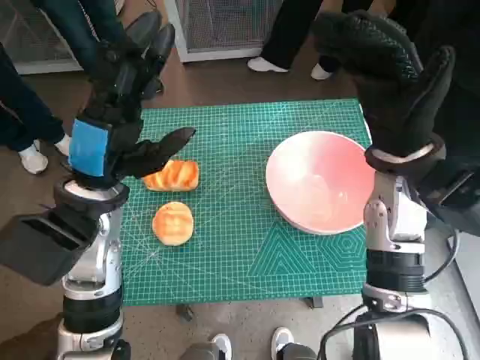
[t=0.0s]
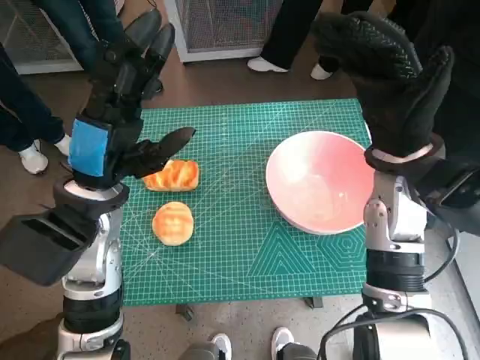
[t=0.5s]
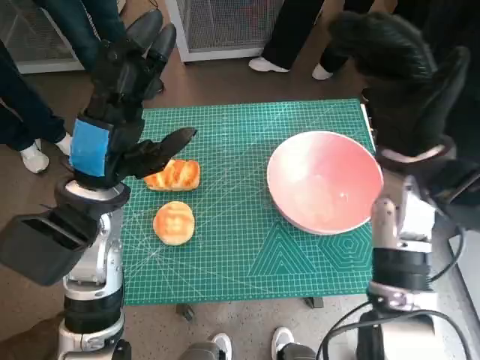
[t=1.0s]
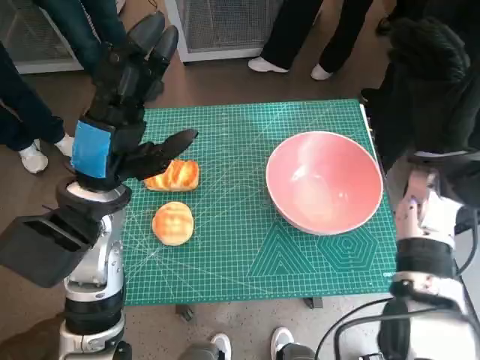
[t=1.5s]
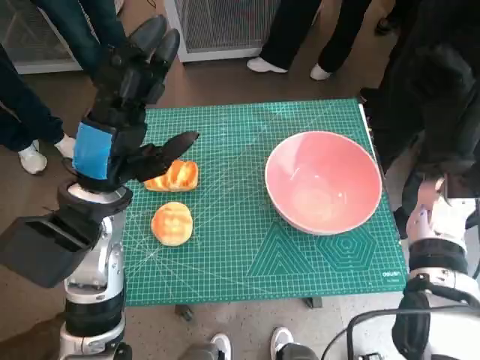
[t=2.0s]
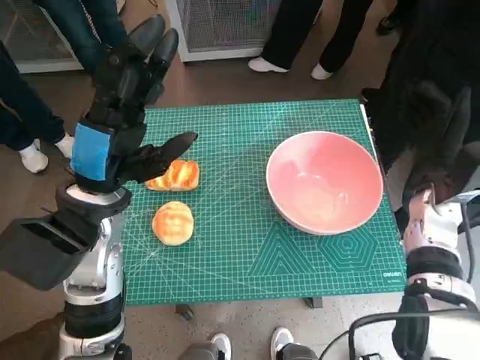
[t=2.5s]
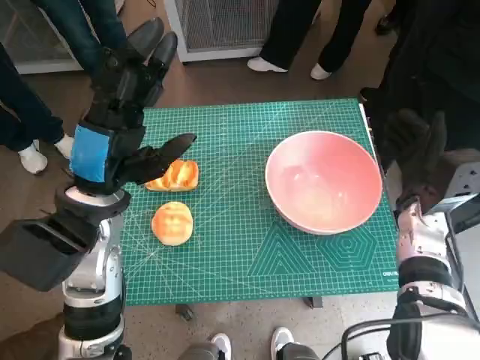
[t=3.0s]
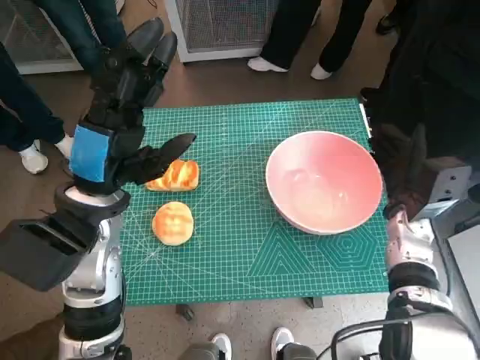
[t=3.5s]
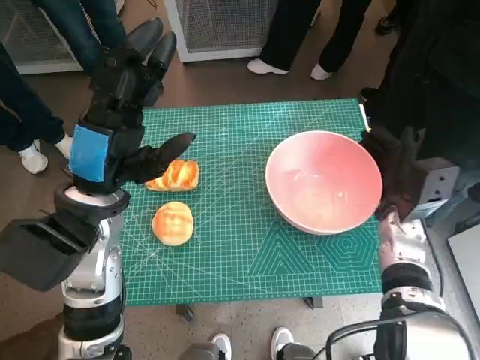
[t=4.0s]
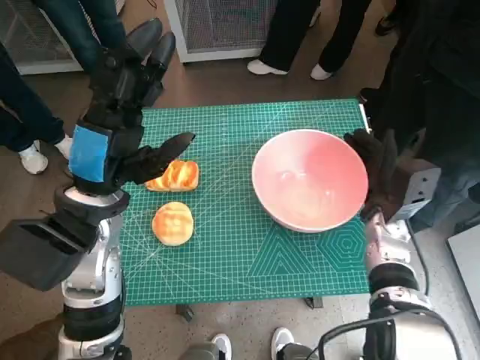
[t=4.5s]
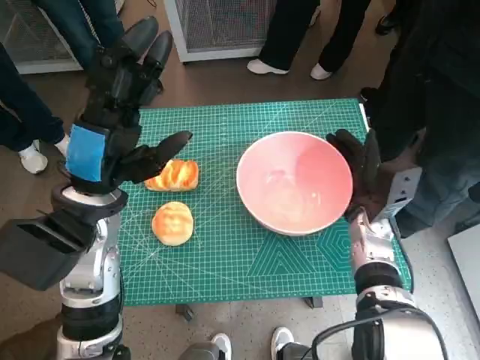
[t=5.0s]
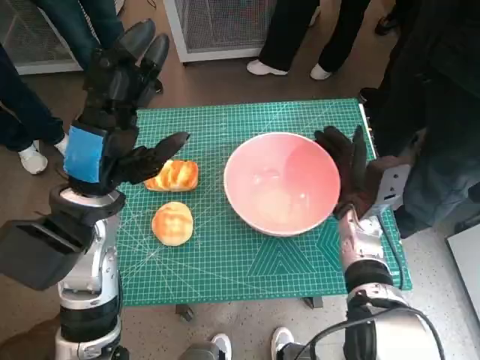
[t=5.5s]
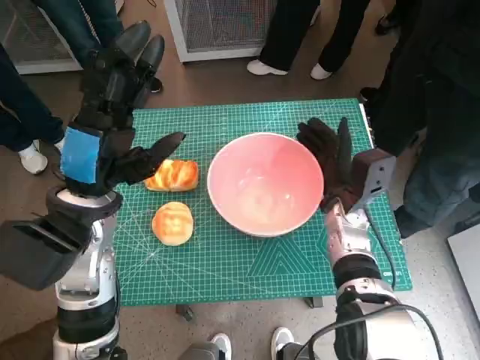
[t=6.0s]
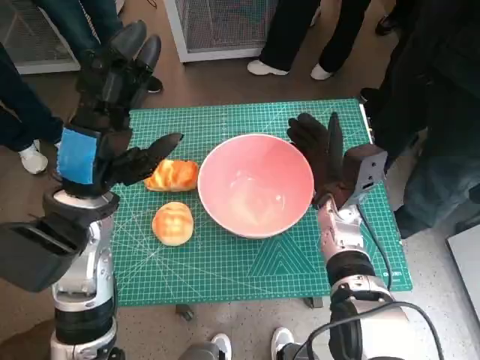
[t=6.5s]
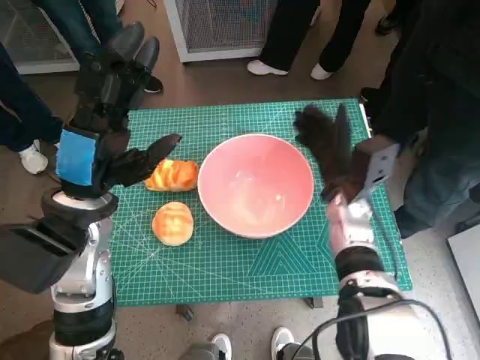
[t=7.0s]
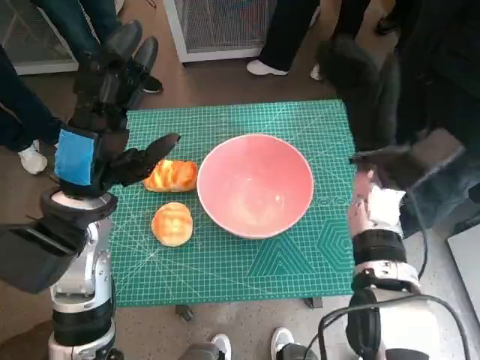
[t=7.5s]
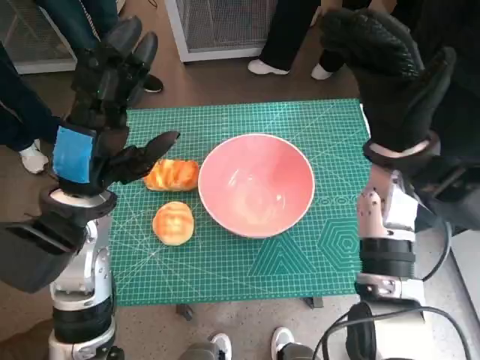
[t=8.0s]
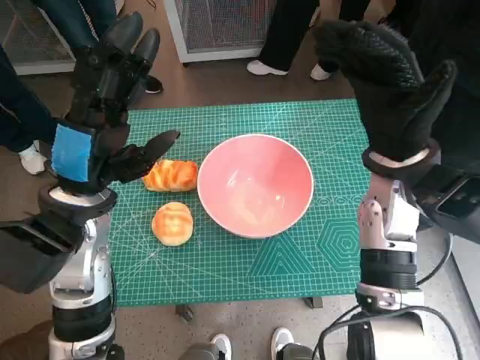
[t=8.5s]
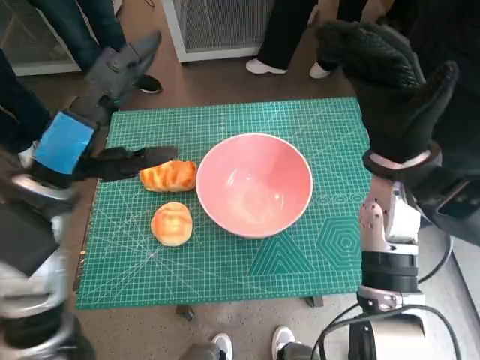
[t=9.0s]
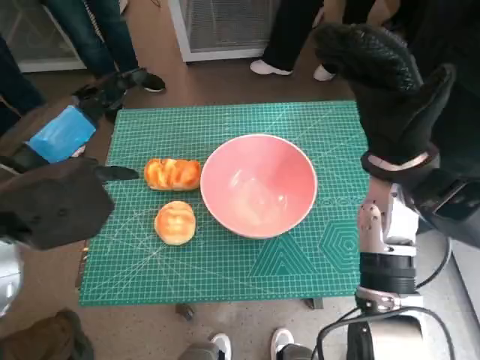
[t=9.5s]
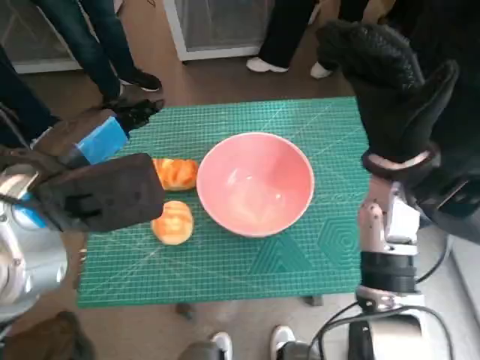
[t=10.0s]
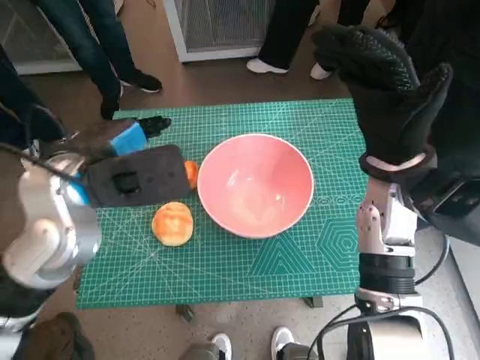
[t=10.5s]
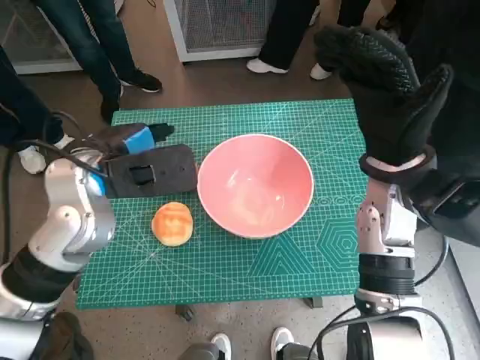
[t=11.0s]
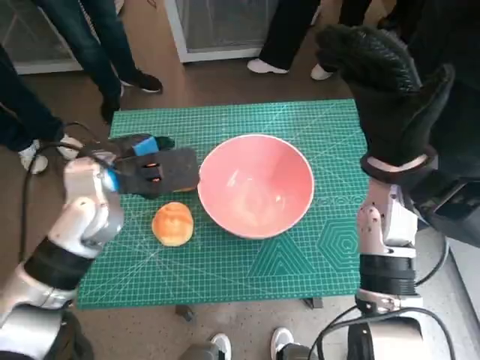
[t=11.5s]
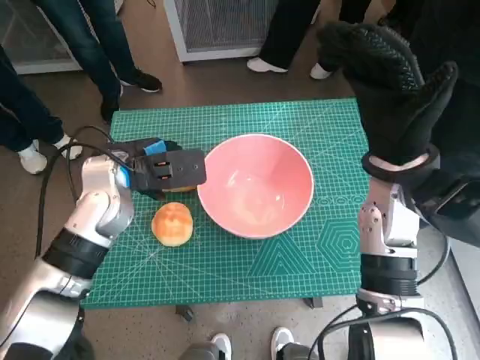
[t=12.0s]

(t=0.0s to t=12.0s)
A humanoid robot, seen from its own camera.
Task of the whole recording: Push the bowl into the center of the table and put the bread into the bowl.
Step, t=0.0s - t=6.5s: Move the pink bowl to the center of table with right hand.
t=2.0s - t=4.0s: The right hand moves downward, about 10 cm.
t=4.0s - t=6.0s: The right hand goes about 10 cm to the left.
t=6.0s - t=8.0s: The right hand shifts roughly 15 cm upward.
t=8.0s - t=10.0s: The left hand shifts roughly 5 cm upward.
t=10.0s - t=12.0s: The left hand is displaced downward and forward by roughly 15 cm.

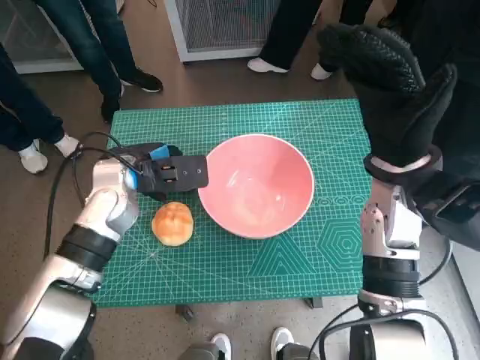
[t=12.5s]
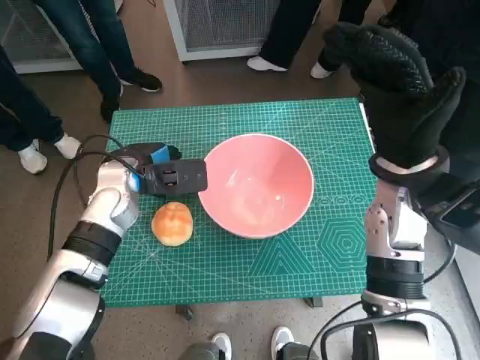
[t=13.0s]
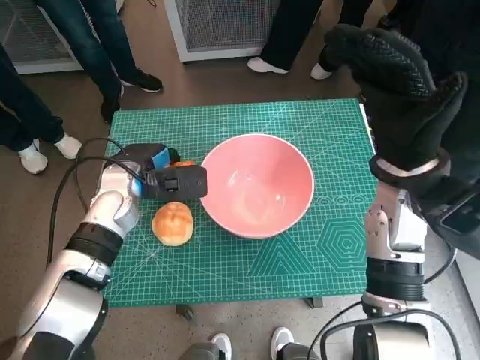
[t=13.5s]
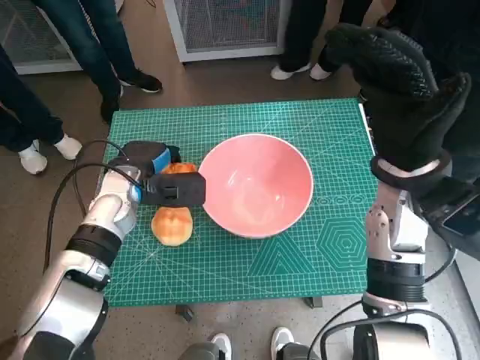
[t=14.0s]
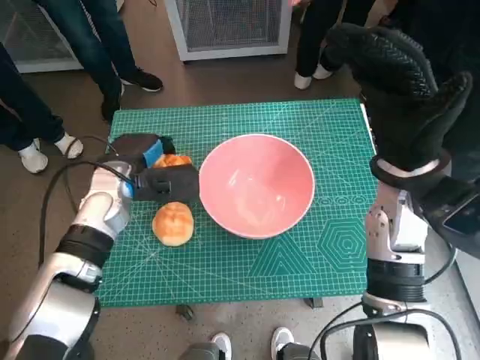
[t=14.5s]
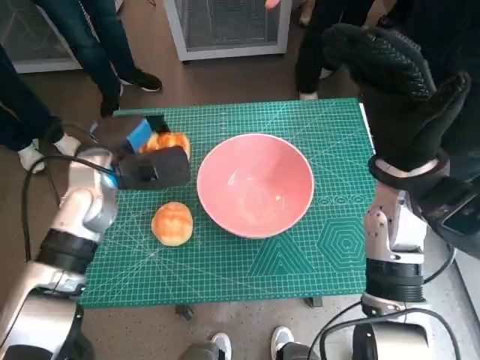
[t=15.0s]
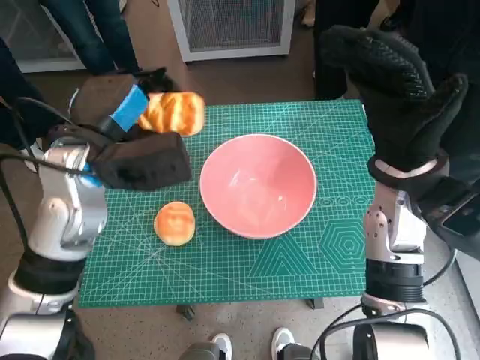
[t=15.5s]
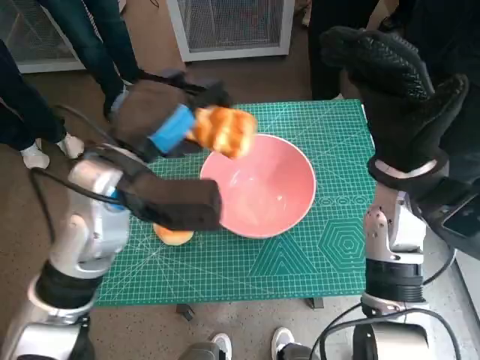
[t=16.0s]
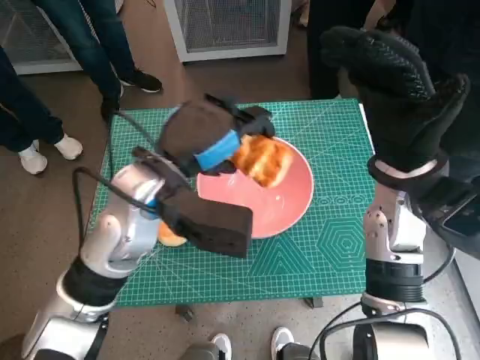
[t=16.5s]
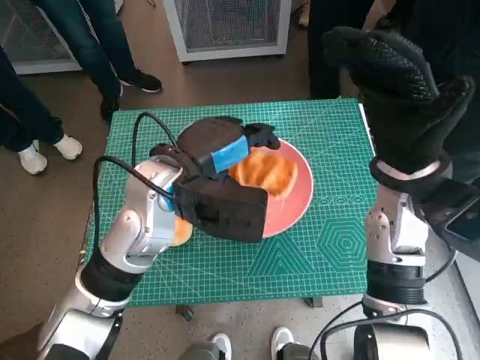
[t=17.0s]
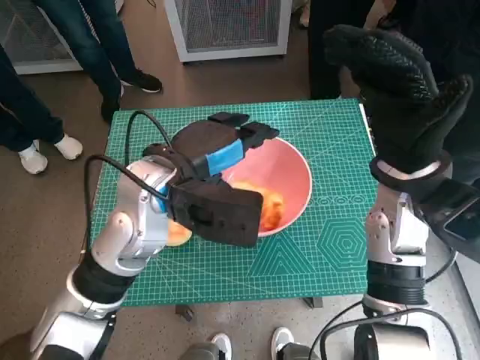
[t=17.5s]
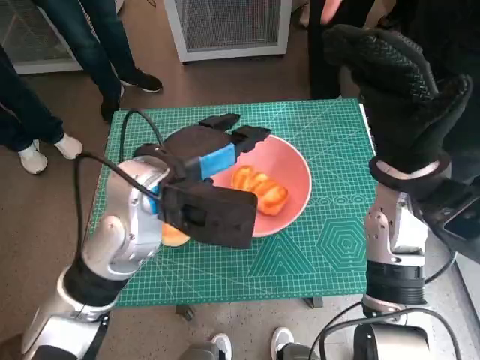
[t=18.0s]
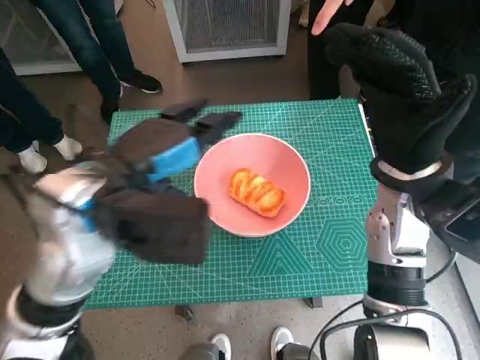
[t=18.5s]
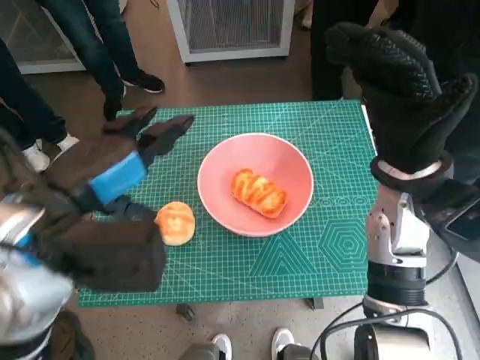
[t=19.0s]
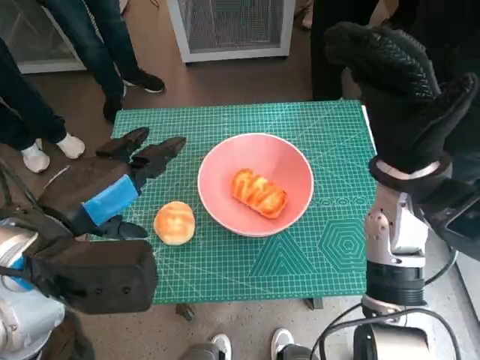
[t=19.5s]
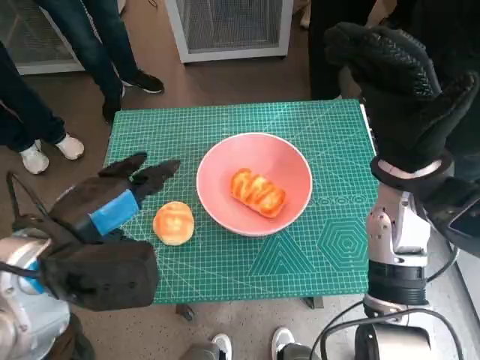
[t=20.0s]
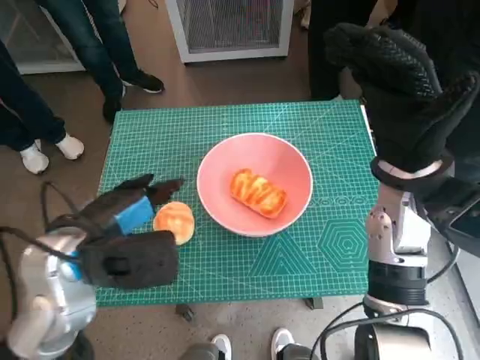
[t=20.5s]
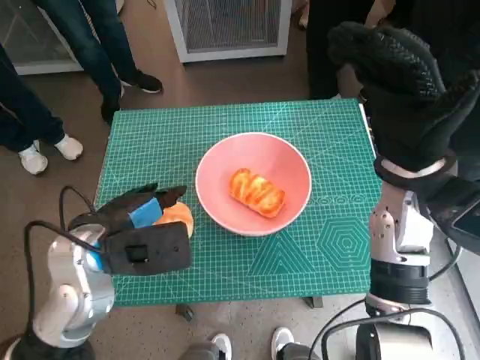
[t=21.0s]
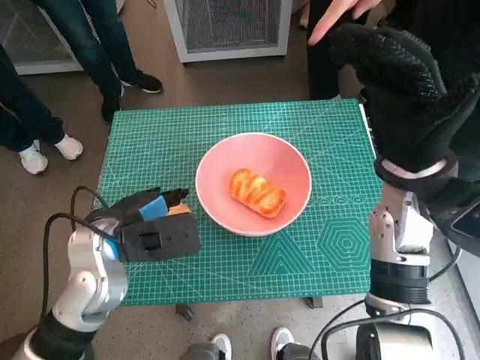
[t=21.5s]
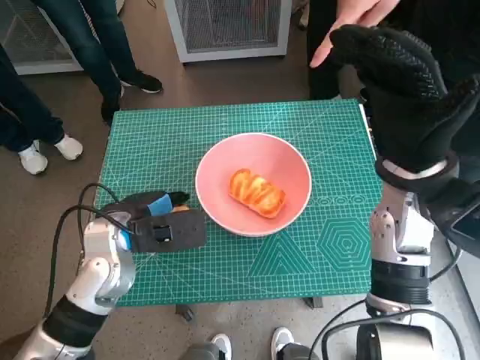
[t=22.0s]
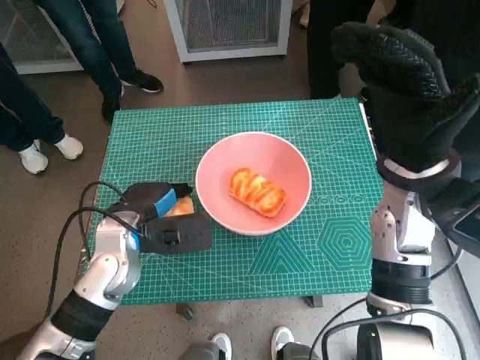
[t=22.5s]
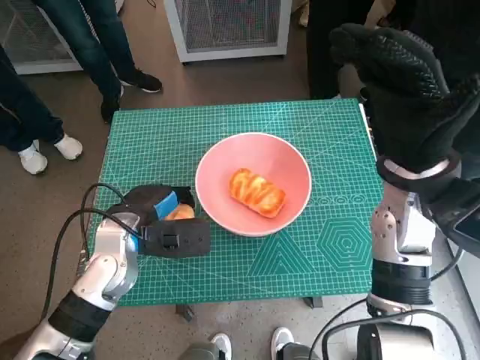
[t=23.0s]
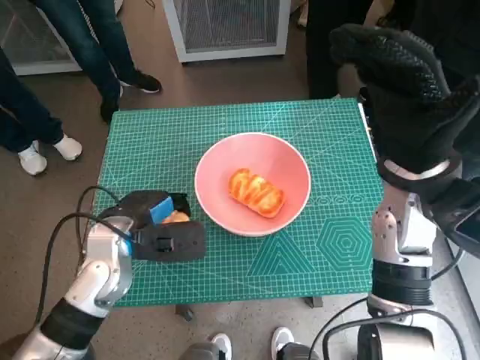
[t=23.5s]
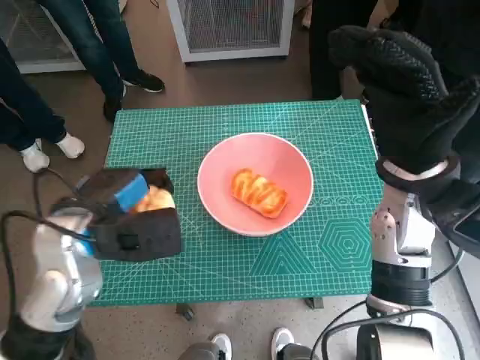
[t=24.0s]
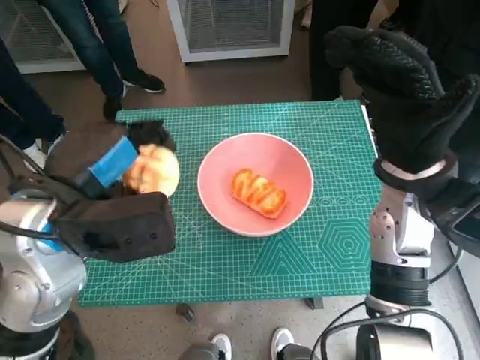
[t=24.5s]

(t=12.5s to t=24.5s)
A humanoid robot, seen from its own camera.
Task of the whole recording: Push the bowl into the center of the table and put the bread into the bowl.
Step, t=14.0s - t=17.0s: Place the long bread in pink bowl with left hand.
Step, t=17.5s - t=22.5s: Grasp the round bread with left hand.
t=12.5s - t=14.5s: The hands move only a little.
t=14.5s - t=16.5s: The left hand moves upward, to the right and backward, about 15 cm.
t=16.5s - t=18.5s: The left hand moves about 5 cm.
t=18.5s - t=20.5s: The left hand goes about 5 cm downward.
t=20.5s - t=22.5s: The left hand heads downward and forward, covering some 10 cm.
t=22.5s - t=24.5s: The left hand travels upward by approximately 15 cm.

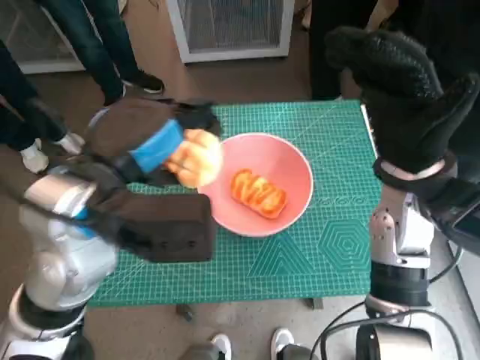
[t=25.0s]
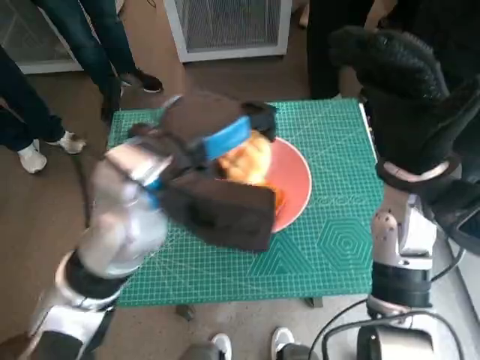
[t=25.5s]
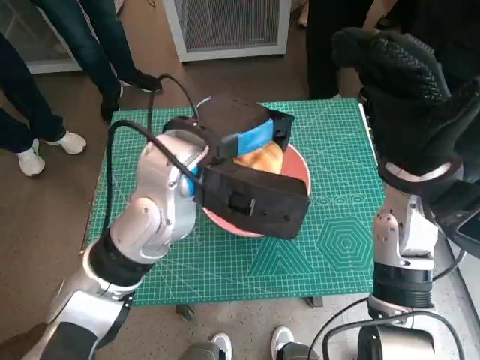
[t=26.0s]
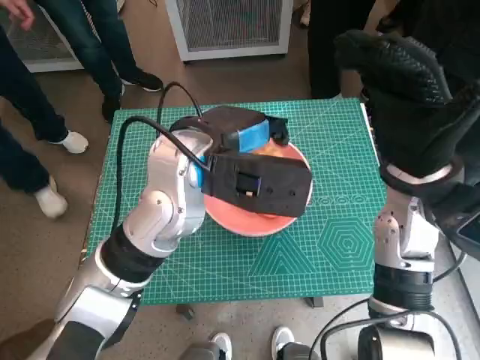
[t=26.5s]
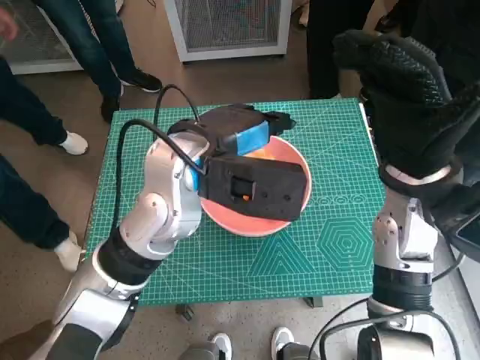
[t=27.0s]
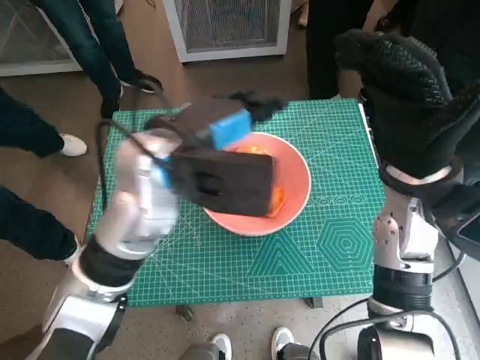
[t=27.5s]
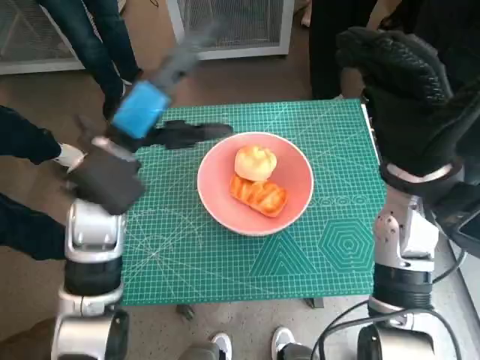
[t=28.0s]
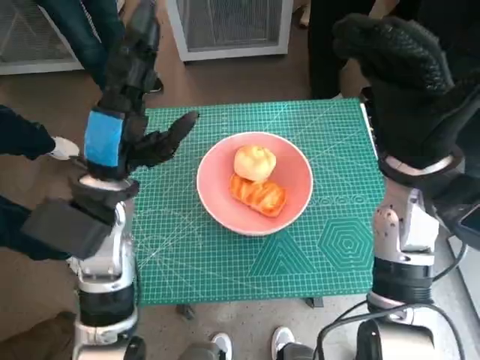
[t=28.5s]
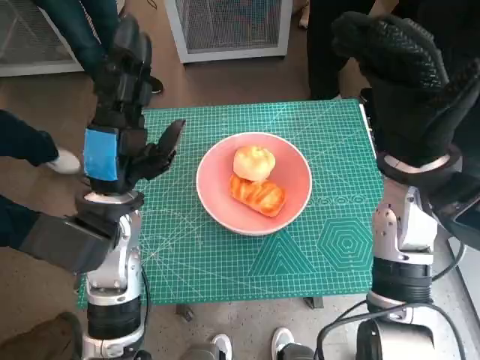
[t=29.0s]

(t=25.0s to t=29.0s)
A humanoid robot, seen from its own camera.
Task of the whole recording: Push the bowl into the center of the table and put the bread into the bowl.
Step, t=25.0s - t=27.0s: Place the round bread in pink bowl with left hand.
t=25.0s - t=27.0s: The left hand goes roughly 10 cm to the right and forward.
t=27.0s - t=29.0s: The left hand is displaced to the left and downward by some 10 cm.
